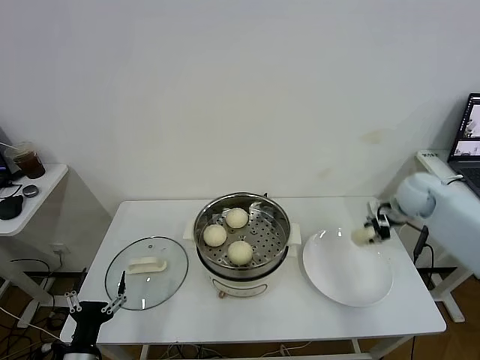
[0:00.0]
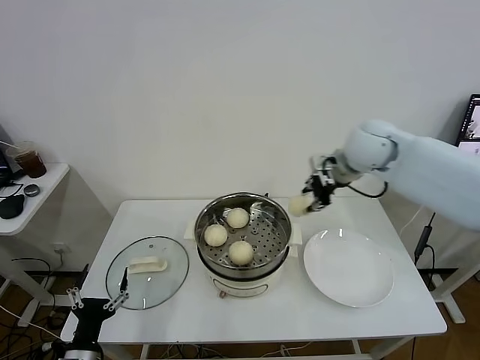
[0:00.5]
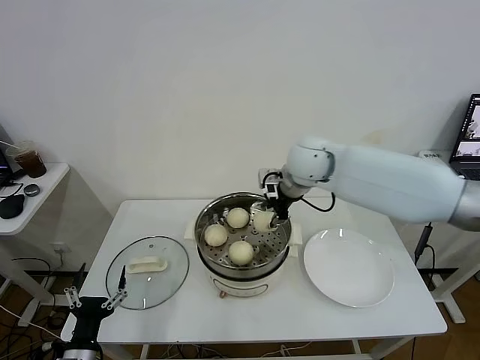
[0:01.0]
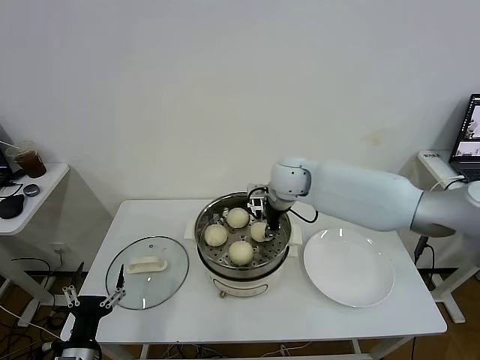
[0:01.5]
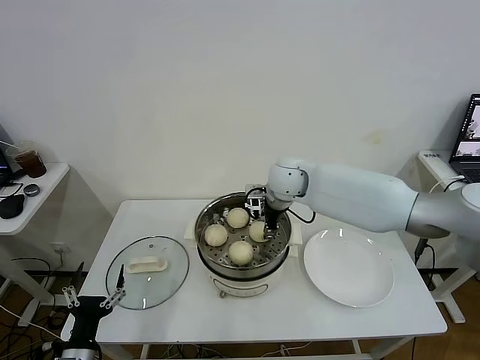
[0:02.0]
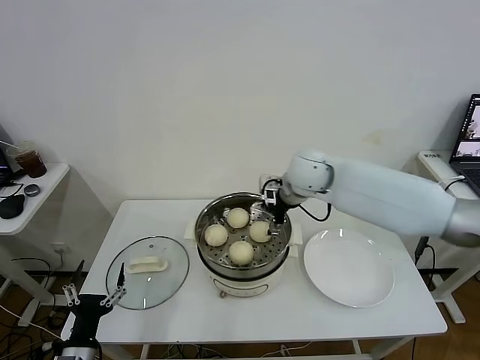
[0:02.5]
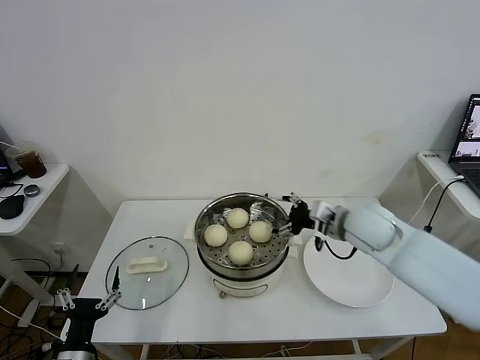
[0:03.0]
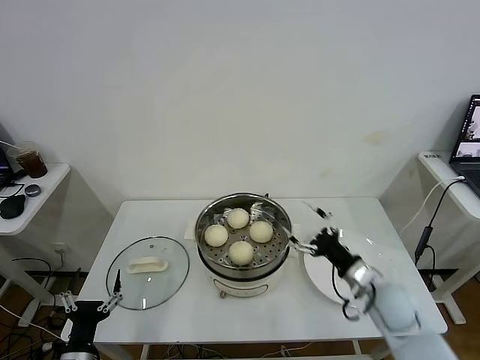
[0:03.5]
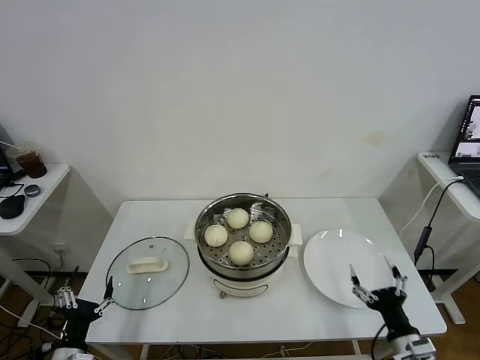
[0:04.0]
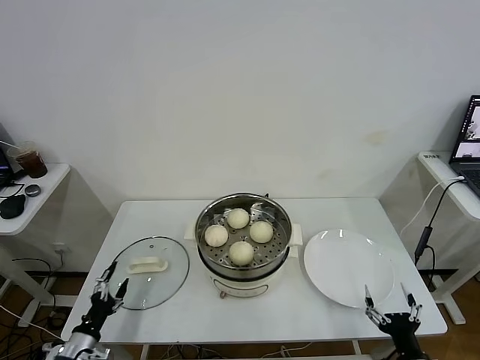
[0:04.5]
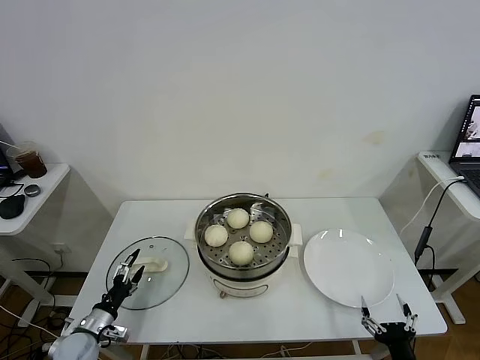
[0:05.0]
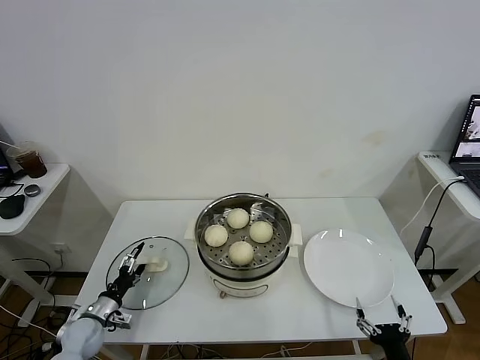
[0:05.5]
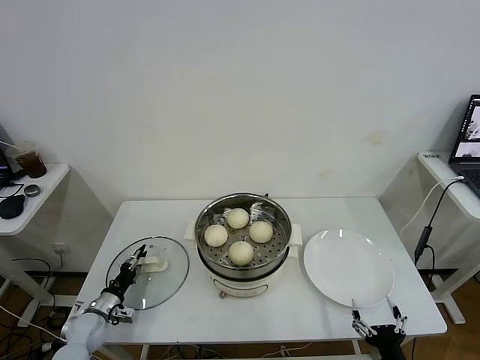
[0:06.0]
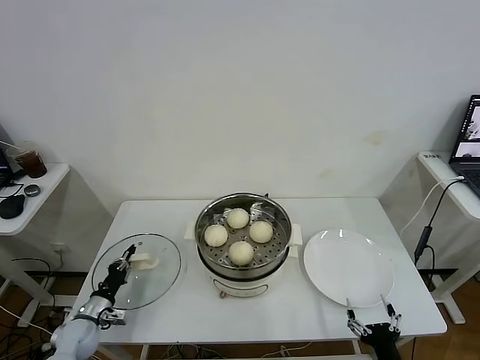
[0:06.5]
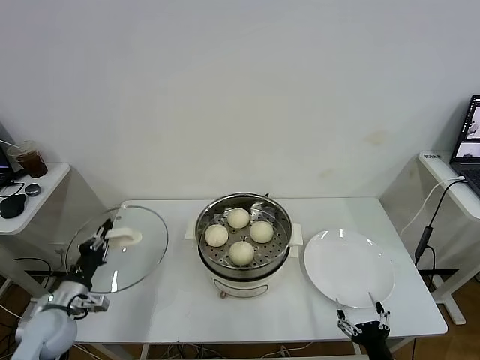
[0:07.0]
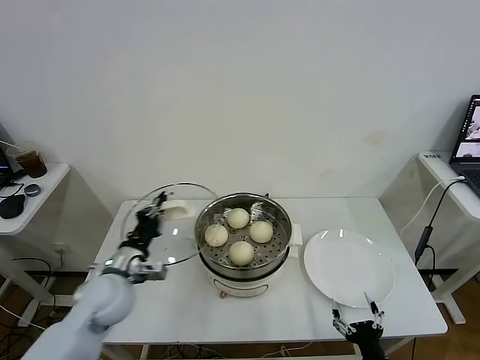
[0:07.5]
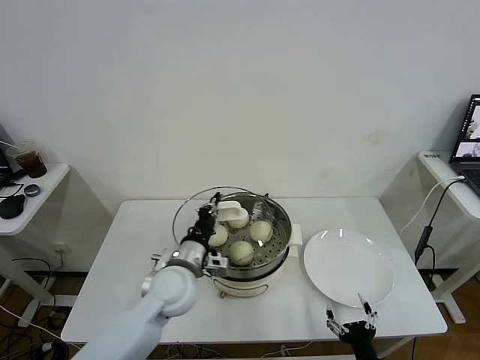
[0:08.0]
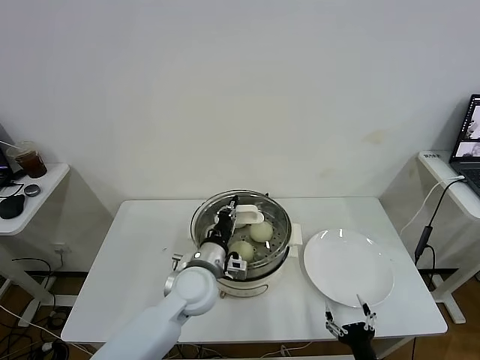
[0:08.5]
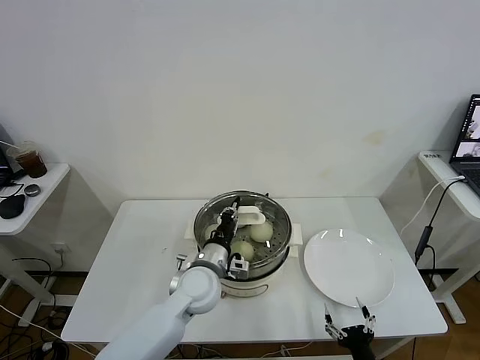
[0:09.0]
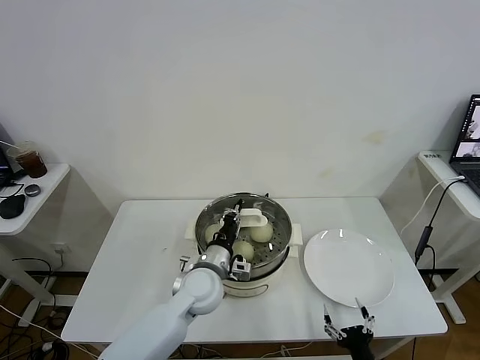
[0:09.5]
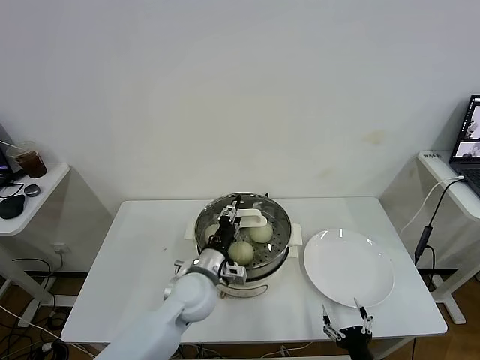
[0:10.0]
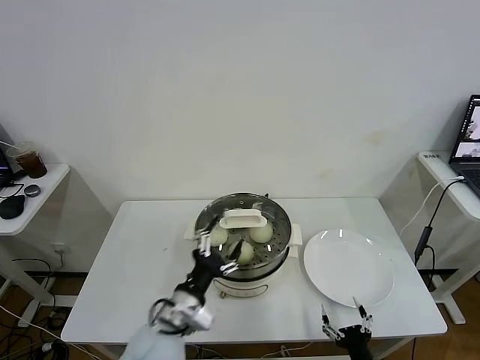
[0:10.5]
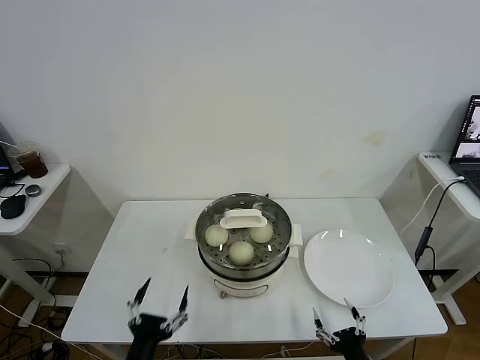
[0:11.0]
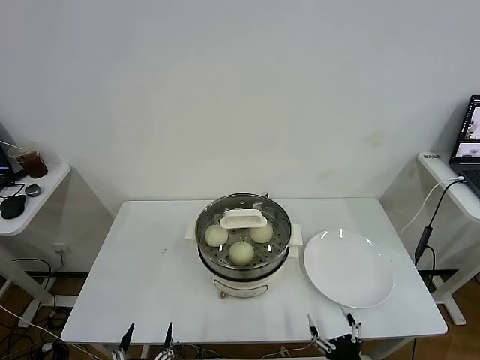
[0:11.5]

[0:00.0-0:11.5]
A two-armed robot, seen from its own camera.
Task of the whole recording: take steamed baozi put them in steamer.
Step, 0:00.0 to 0:02.0: Place the baozi on the steamer with right gripper.
Step, 0:02.5 to 0:06.0: Grasp the pot lid with left gripper.
Step, 0:06.5 to 0:10.5: Place the pot lid on the steamer with left gripper.
0:00.0 to 0:02.0: The right gripper goes approximately 30 cm to the left, and opens.
0:02.0 to 0:04.0: The right gripper is displaced backward, to the right and downward by roughly 50 cm, and opens its fingers.
0:04.0 to 0:06.0: The right gripper goes about 5 cm backward, while the left gripper moves forward and downward, approximately 20 cm, and closes.
0:06.0 to 0:07.5: The left gripper goes approximately 25 cm upward and to the right, and closes up.
0:07.5 to 0:09.5: The left gripper goes roughly 20 cm to the right.
0:09.5 to 0:11.5: The left gripper goes some 35 cm backward and to the left, and opens its fingers.
